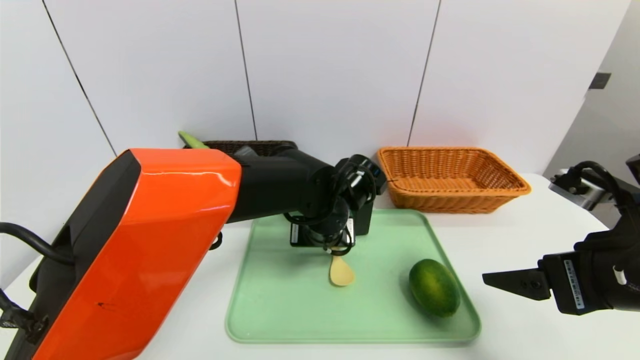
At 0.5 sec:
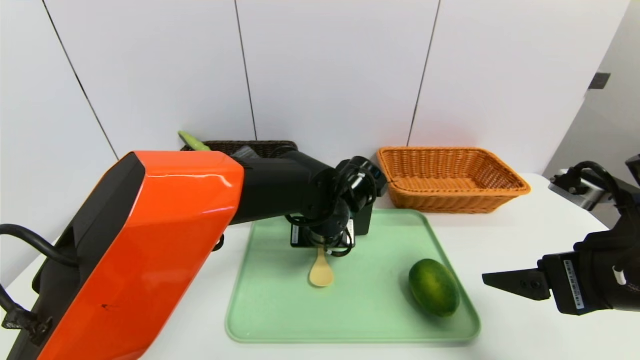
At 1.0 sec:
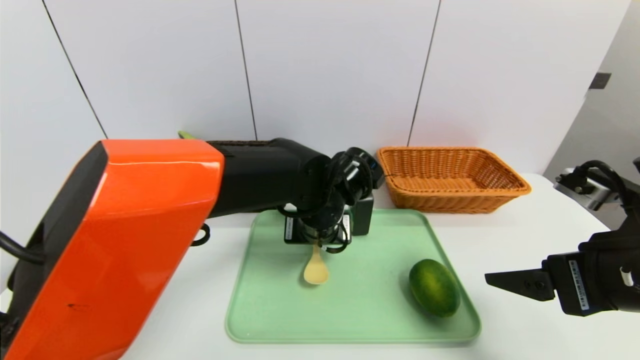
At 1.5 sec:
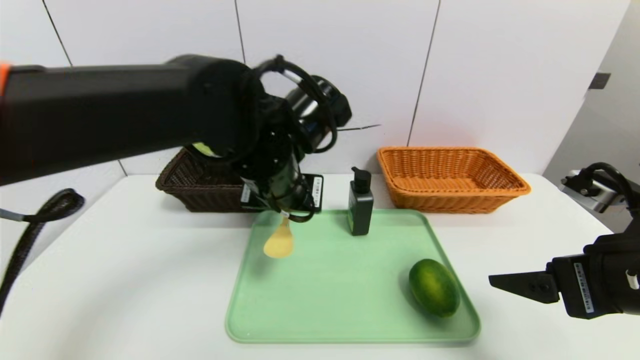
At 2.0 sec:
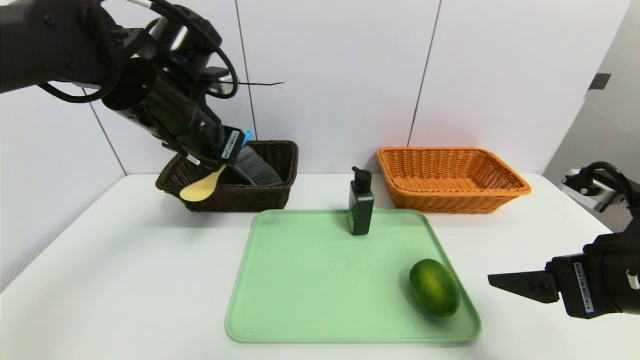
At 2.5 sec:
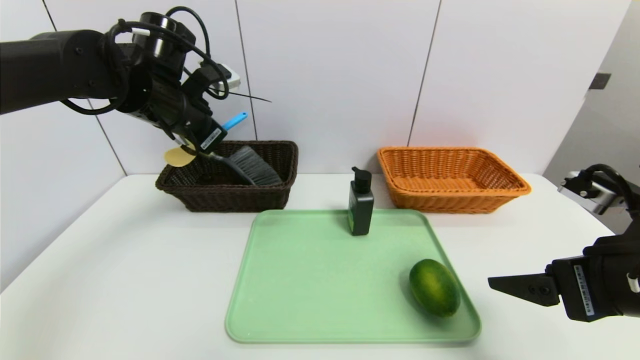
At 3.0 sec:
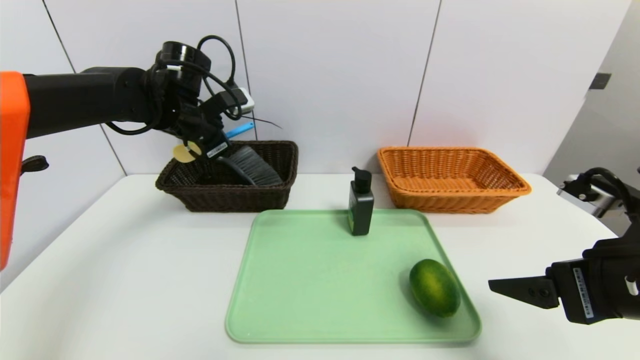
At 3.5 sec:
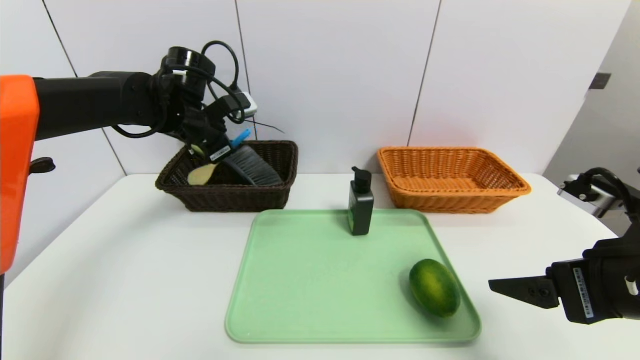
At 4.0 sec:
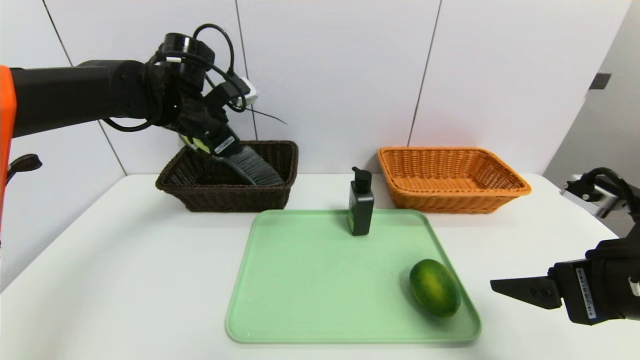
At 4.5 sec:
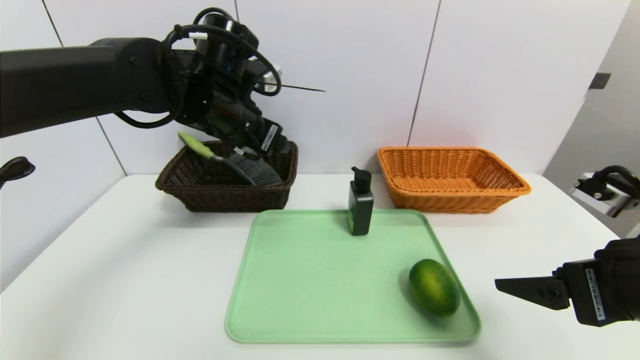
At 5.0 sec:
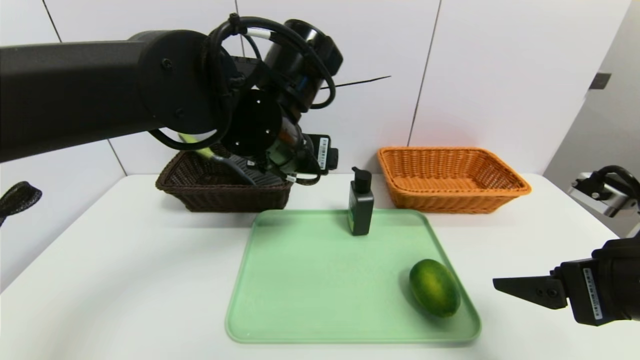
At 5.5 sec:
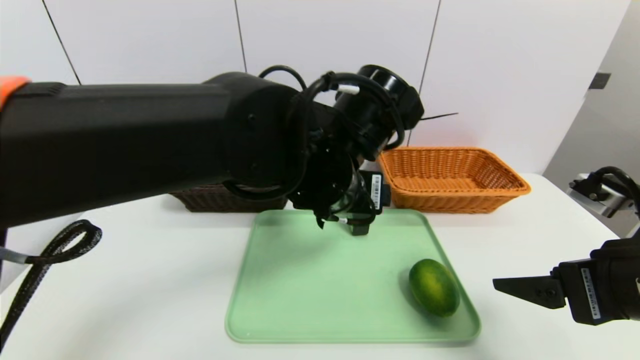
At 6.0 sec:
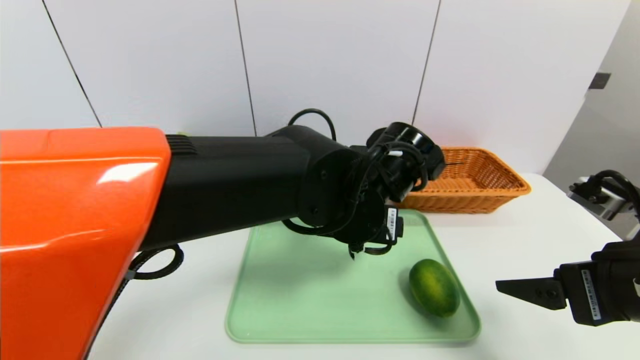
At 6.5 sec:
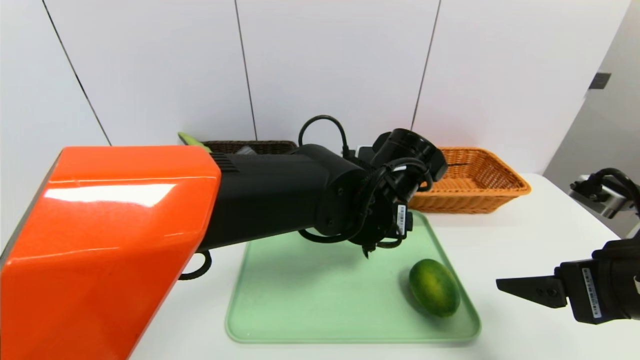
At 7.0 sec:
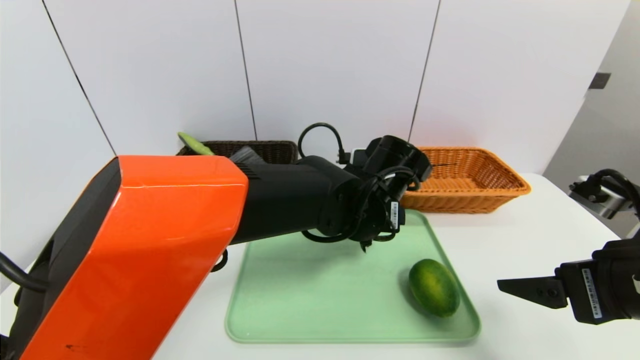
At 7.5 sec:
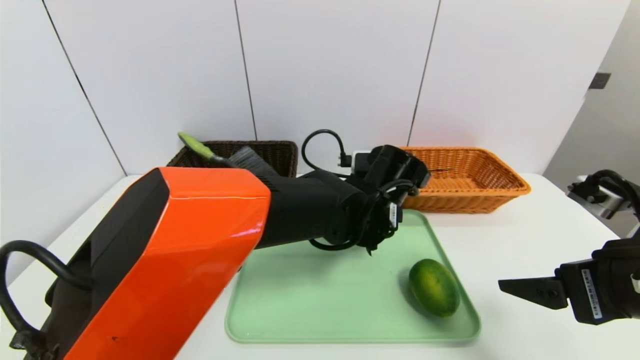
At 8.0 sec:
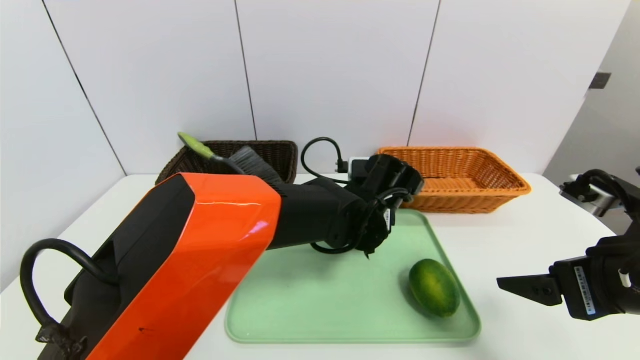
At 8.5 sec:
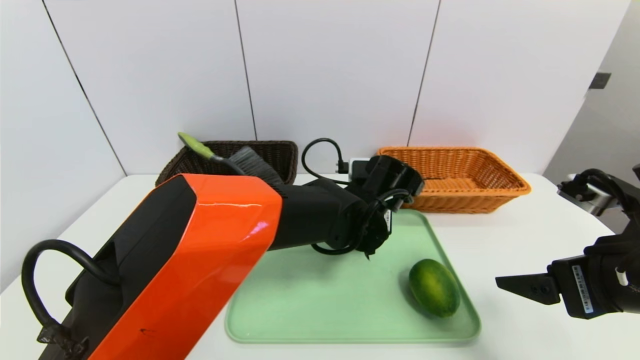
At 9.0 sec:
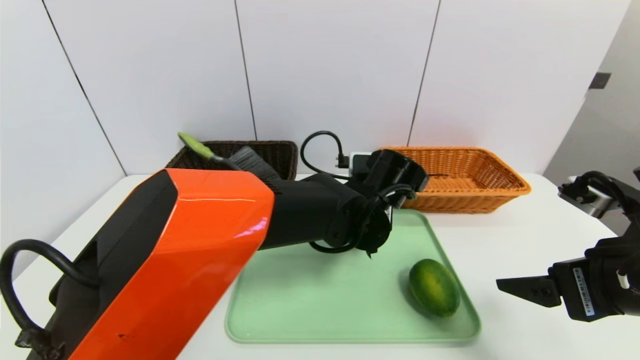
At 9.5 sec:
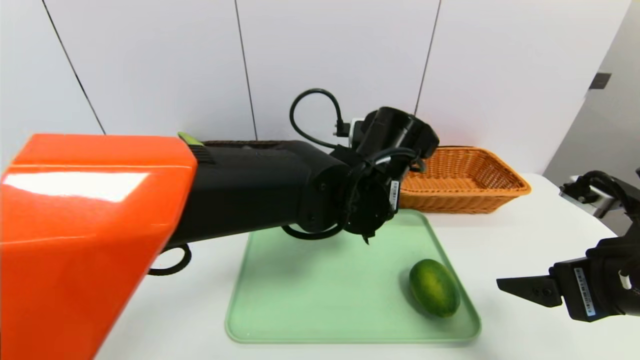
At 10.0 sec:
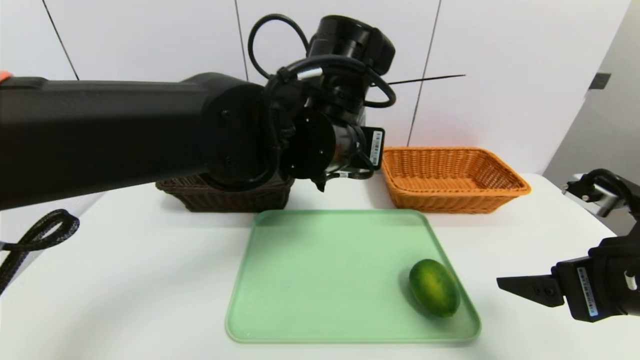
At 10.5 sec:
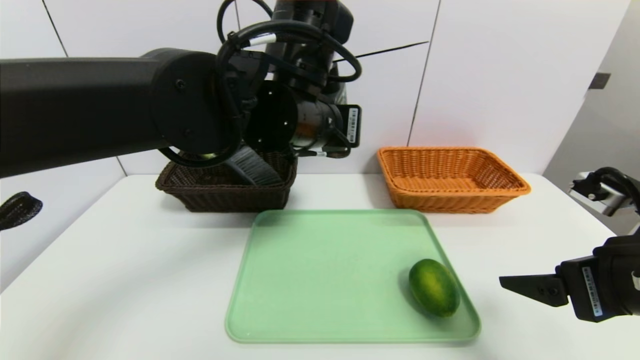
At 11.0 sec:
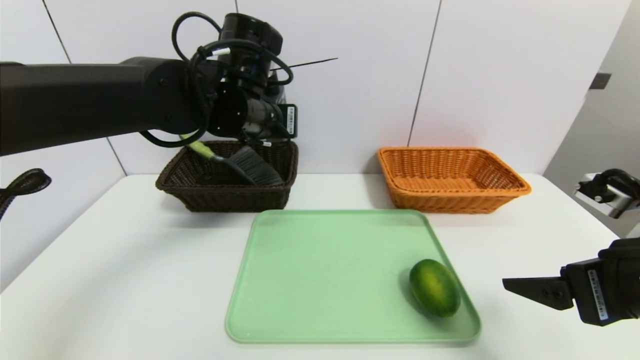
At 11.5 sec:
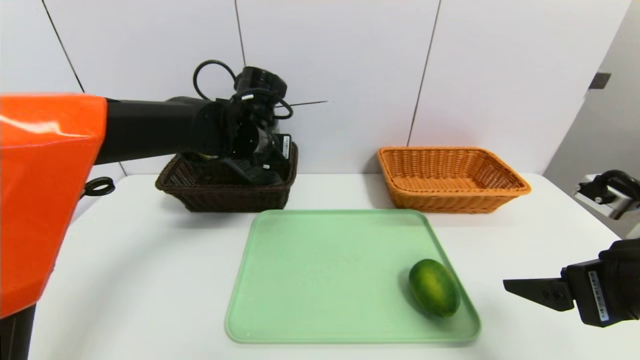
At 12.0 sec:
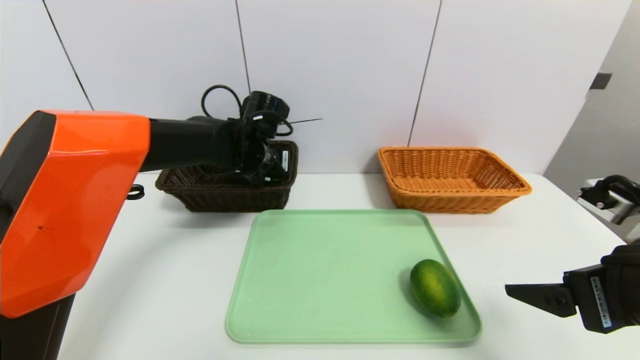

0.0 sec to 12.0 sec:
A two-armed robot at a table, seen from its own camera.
Task of the whole recording: place the food in the right basket with the right gripper, and place the non food items in the left basket with the left gripper.
Step, 0.0 sec to 3.5 sec: Grasp the back scratcher and put it in the left basket.
0.0 sec to 2.0 sec: The left gripper heads to the left and upward, covering approximately 25 cm, and closes.
2.0 sec to 4.0 sec: The left gripper travels forward by roughly 10 cm, and opens.
4.0 sec to 6.0 sec: The left gripper goes some 25 cm to the right and backward.
6.0 sec to 8.0 sec: The left gripper is displaced downward and forward by roughly 10 cm.
8.0 sec to 10.0 sec: The left gripper shifts roughly 15 cm upward and to the left, and closes its fingers.
10.0 sec to 12.0 sec: The left gripper shifts roughly 20 cm forward, to the left and downward, and opens up.

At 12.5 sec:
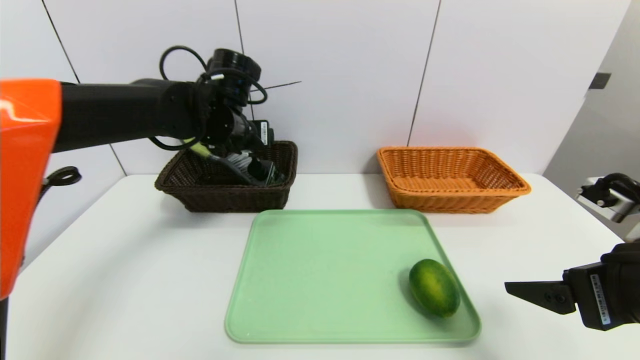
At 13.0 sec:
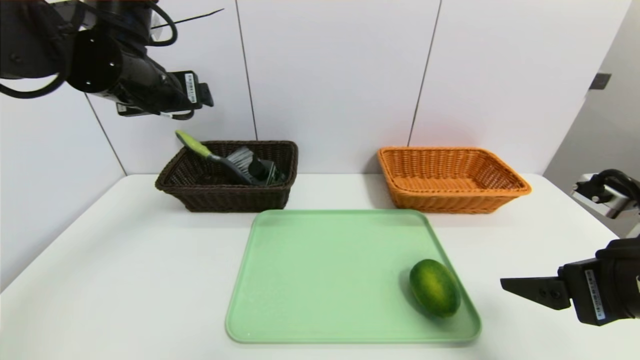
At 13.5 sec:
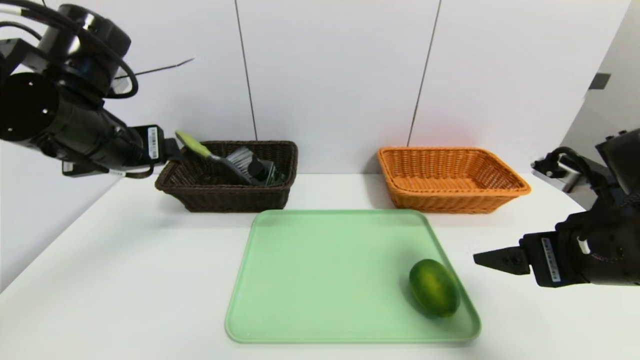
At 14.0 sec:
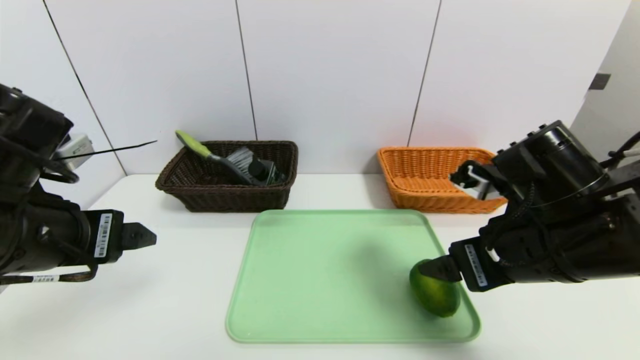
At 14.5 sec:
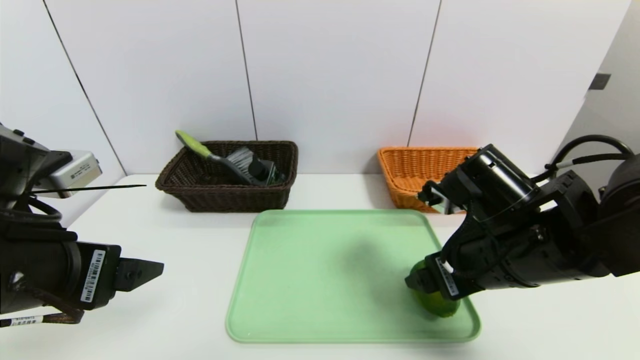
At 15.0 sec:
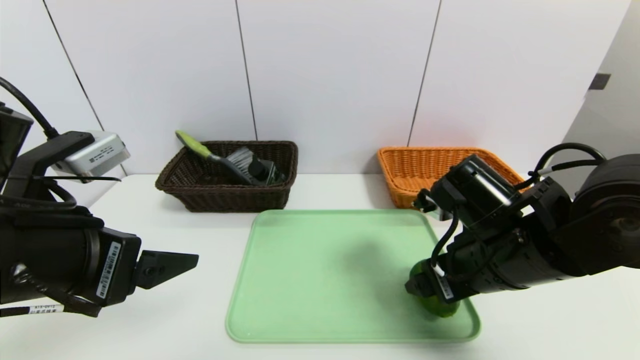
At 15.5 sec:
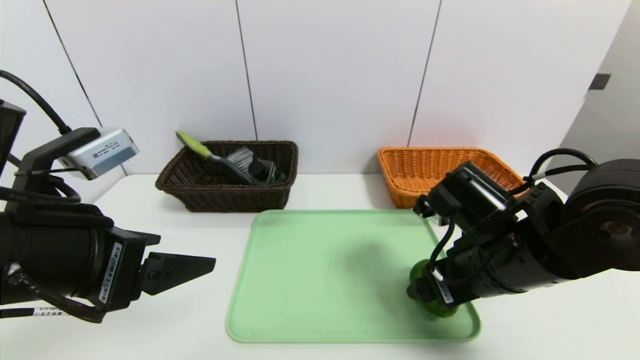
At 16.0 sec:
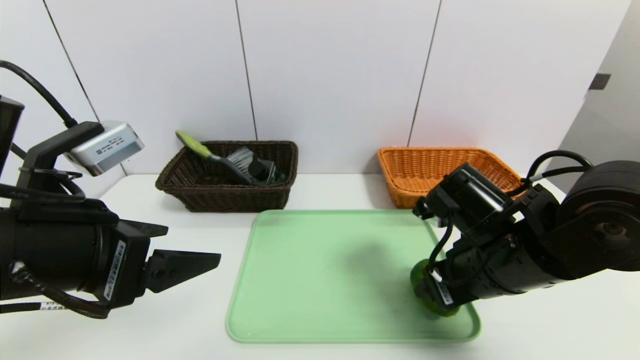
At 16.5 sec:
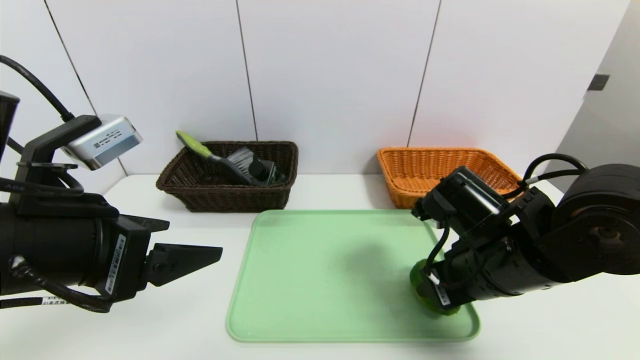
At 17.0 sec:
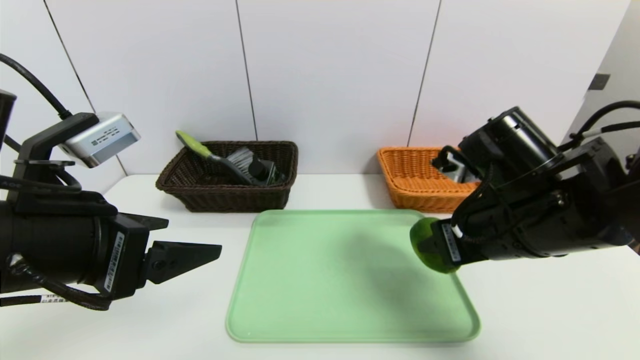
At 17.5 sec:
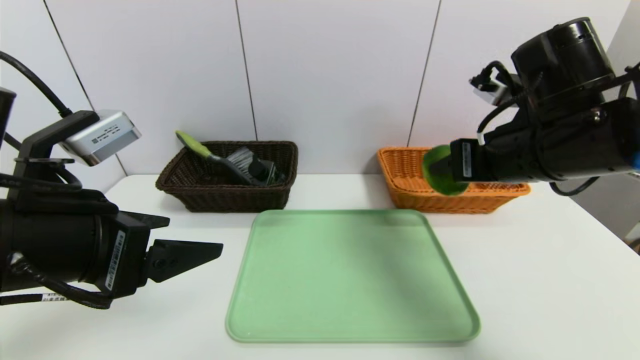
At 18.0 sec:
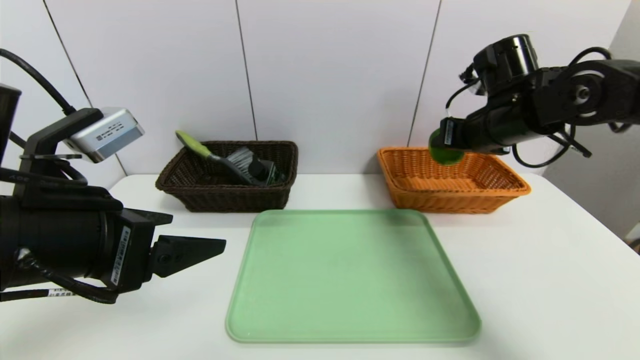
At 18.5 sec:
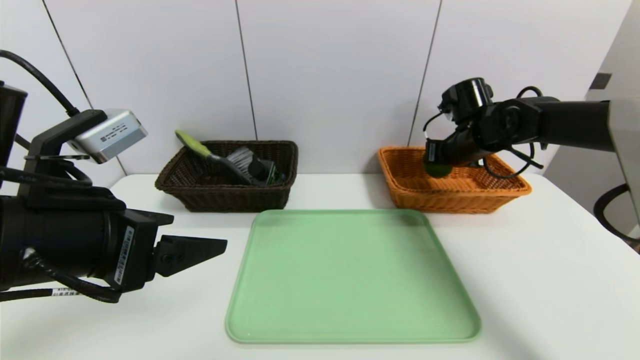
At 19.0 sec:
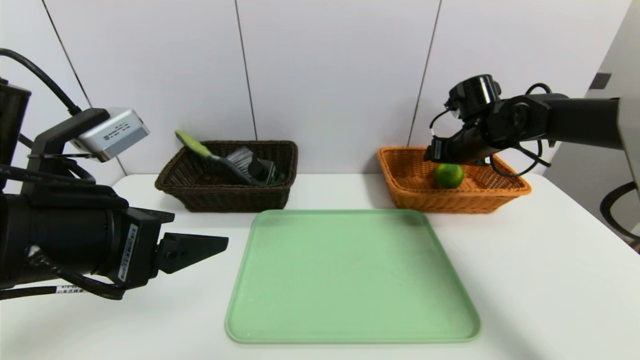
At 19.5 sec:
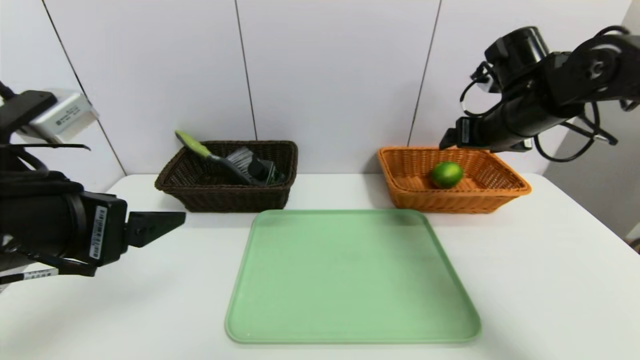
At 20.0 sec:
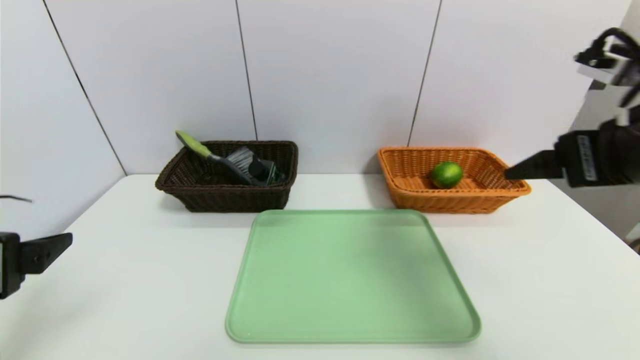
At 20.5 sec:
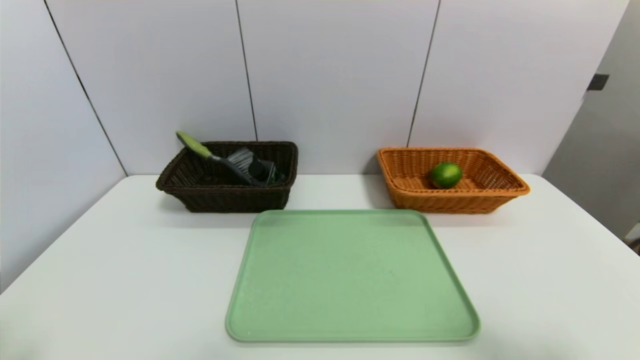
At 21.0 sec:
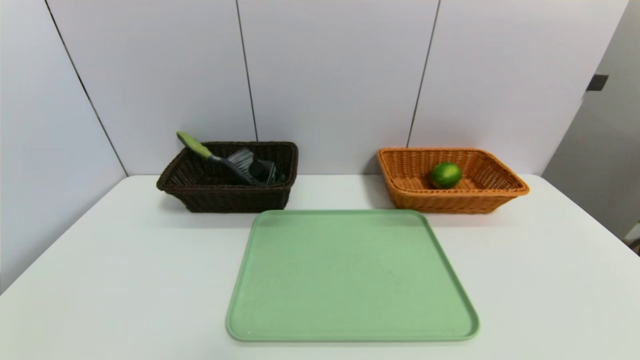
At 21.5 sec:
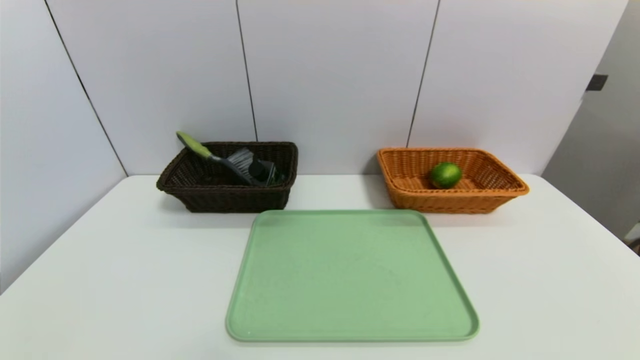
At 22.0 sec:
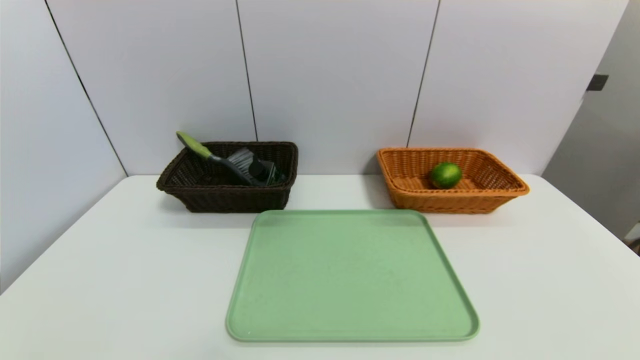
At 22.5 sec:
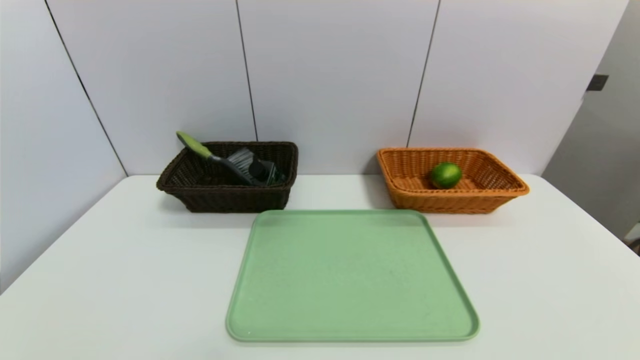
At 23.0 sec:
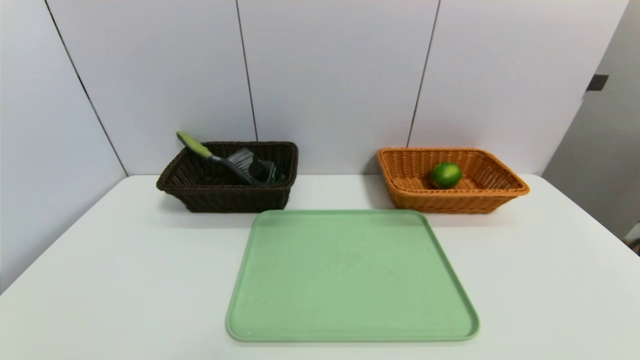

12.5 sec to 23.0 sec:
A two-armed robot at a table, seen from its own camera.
Task of the whole recording: place the food in the right basket with the right gripper, and place the non food items in the left basket with the left gripper.
Step, 12.5 sec to 19.0 sec: Grasp the green lemon and put it in the right basket.
12.5 sec to 14.5 sec: The right gripper is displaced to the left and forward by about 15 cm; the left gripper goes approximately 25 cm backward.
14.5 sec to 16.5 sec: The right gripper closes up.
16.5 sec to 19.0 sec: The right gripper goes roughly 20 cm forward, and opens up.
19.0 sec to 21.0 sec: The right gripper is displaced backward by approximately 50 cm, while the left gripper heads backward, to the left and downward, covering some 25 cm.
